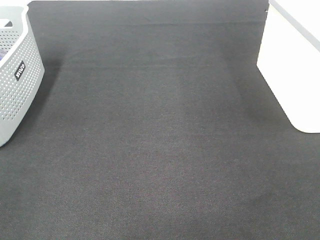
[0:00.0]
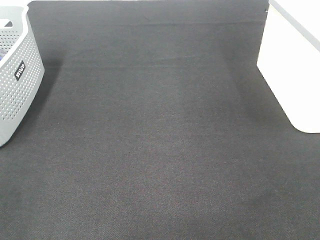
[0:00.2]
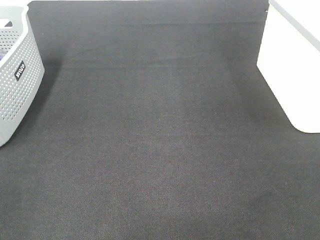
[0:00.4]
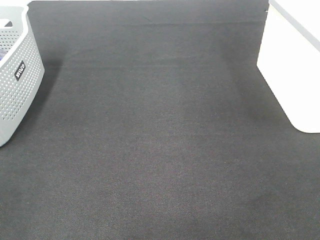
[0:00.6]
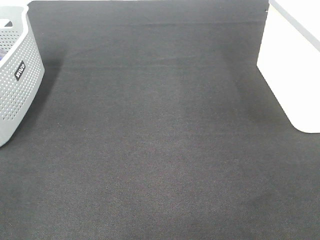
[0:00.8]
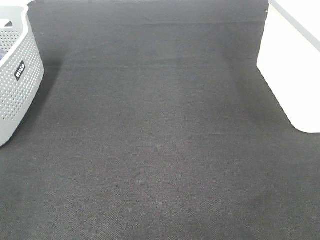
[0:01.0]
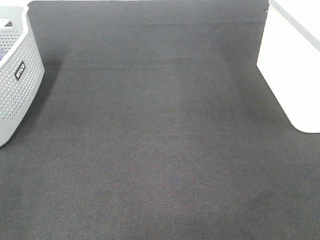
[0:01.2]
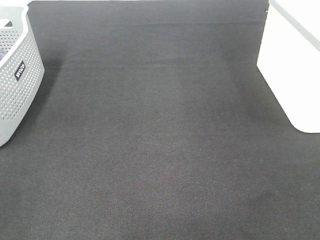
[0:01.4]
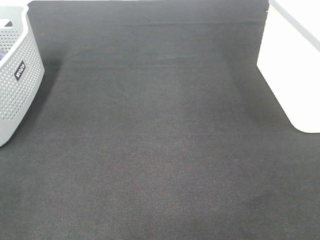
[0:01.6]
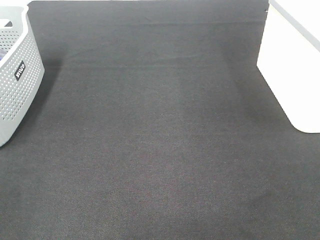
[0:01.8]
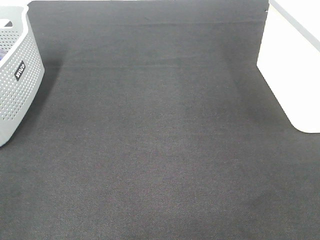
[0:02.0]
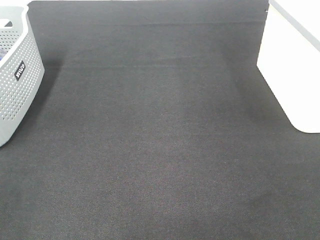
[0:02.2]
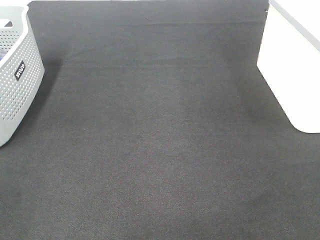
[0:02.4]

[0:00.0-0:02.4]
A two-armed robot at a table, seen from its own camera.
0:00.0 to 0:02.4: The two grippers keep their place.

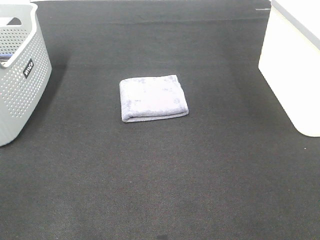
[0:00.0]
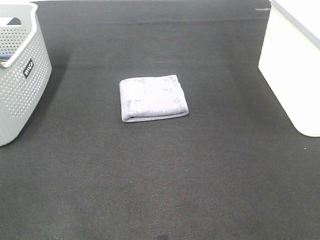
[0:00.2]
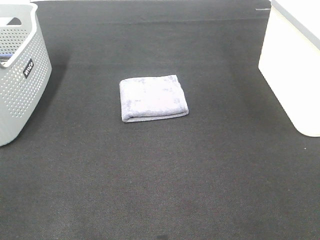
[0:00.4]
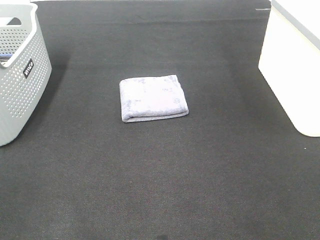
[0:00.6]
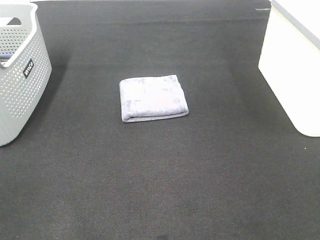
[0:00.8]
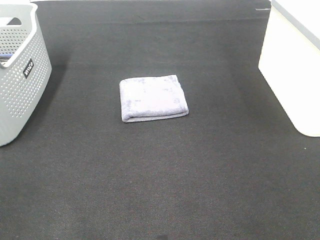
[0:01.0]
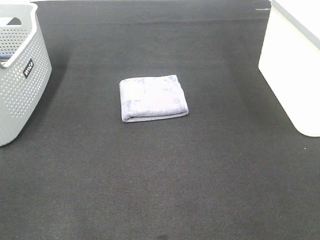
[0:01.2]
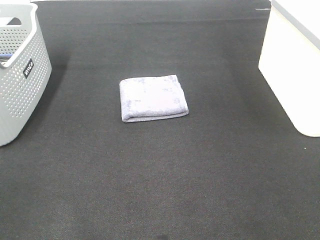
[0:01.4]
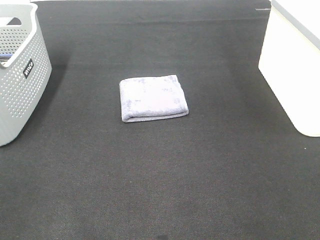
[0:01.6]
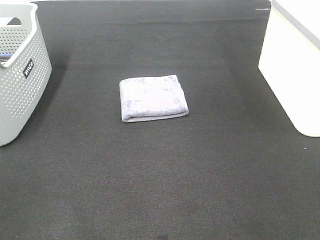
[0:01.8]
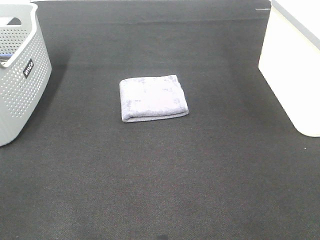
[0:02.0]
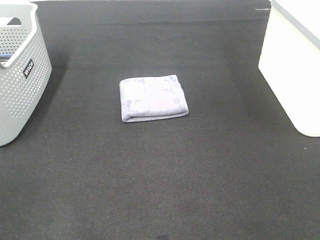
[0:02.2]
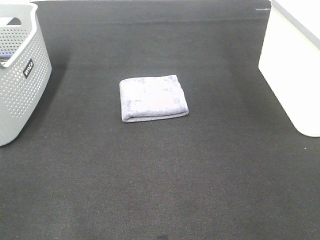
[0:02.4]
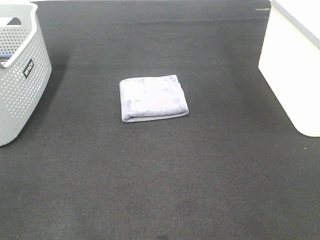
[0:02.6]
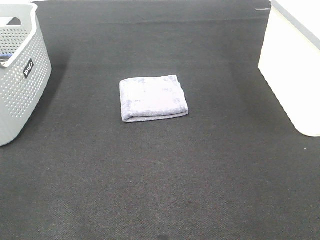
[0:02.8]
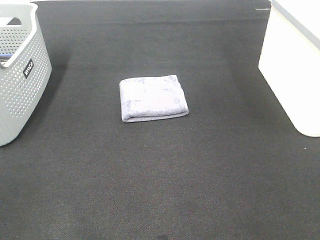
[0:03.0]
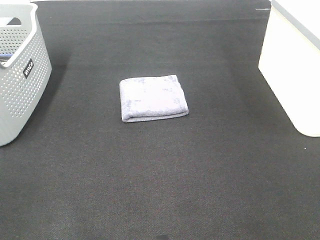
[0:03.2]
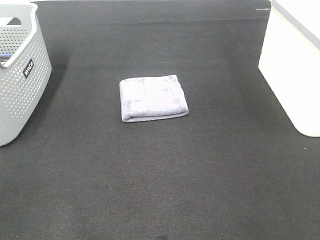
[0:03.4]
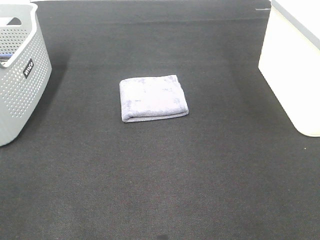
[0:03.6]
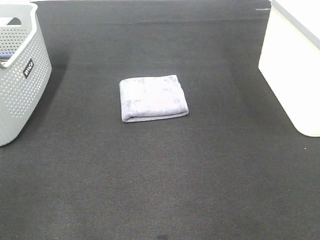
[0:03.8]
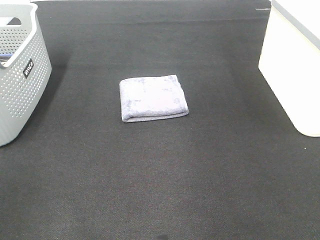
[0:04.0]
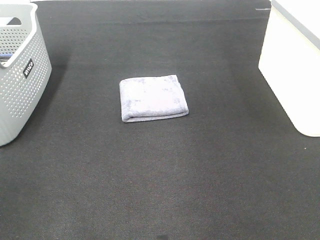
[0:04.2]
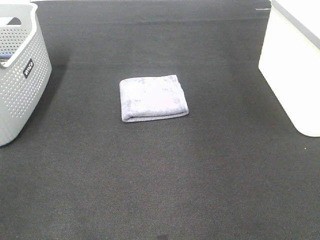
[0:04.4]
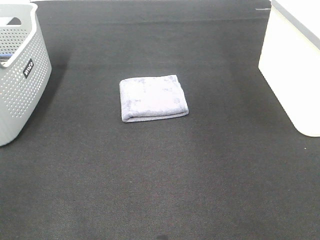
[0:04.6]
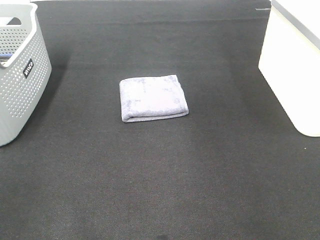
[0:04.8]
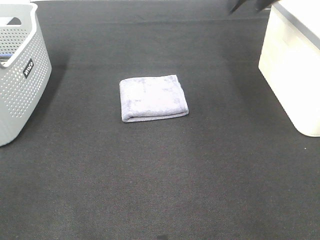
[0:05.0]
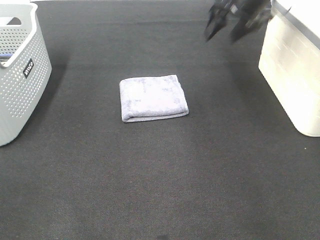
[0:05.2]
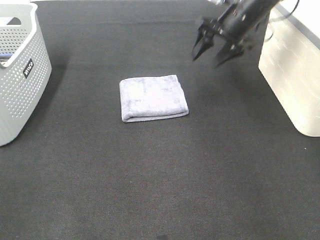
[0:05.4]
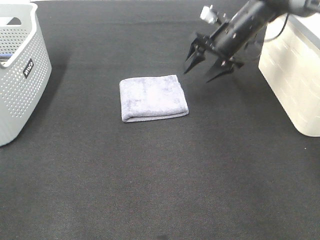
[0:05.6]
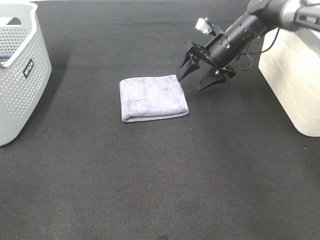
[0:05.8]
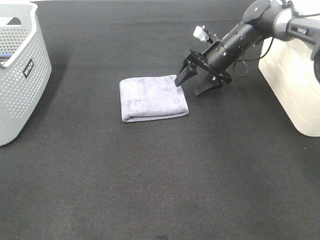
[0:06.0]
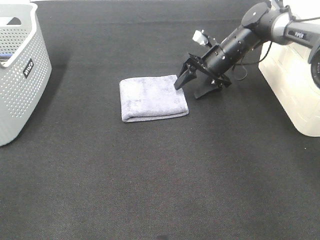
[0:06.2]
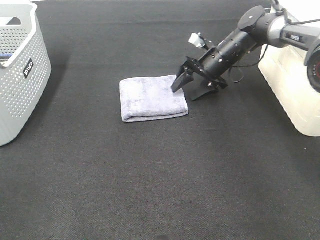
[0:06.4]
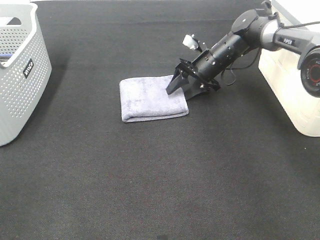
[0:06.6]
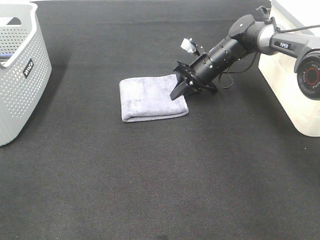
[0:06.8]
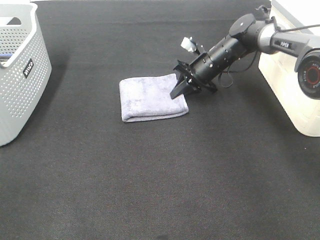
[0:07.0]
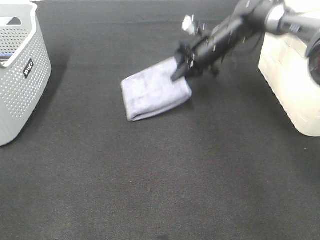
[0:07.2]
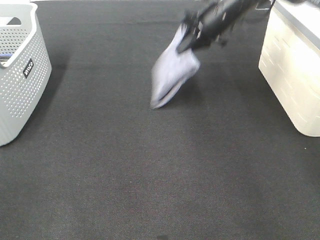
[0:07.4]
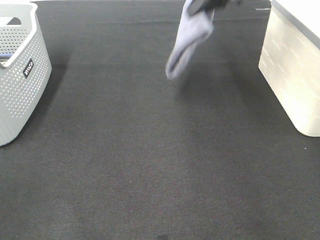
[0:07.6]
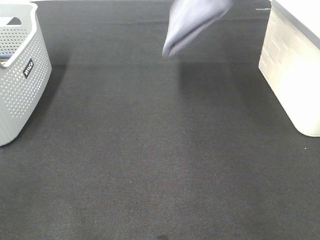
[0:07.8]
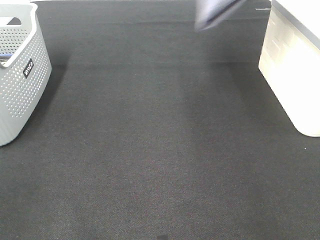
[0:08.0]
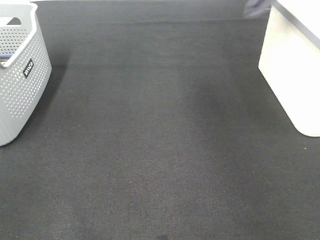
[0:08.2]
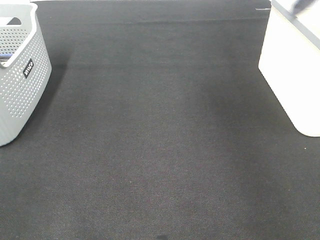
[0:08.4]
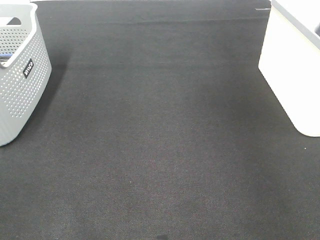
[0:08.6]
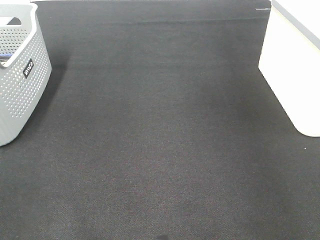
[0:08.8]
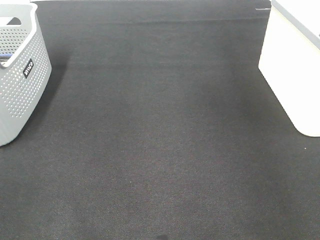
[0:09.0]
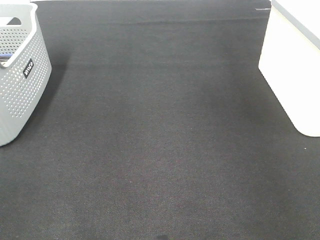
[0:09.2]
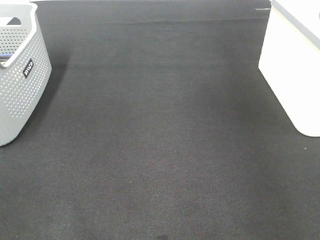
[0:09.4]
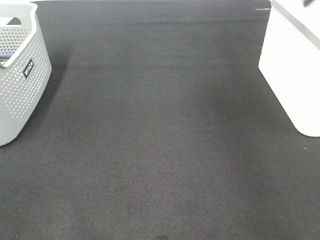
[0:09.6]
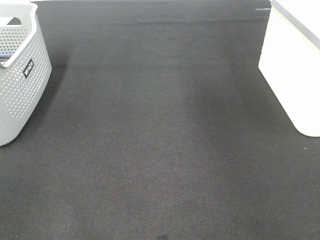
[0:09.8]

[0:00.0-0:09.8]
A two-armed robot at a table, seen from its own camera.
Step, 0:00.0 to 0:06.8: Right hand: grab the folded grey towel.
0:00.0 to 0:02.8: Both grippers stay put.
0:04.2 to 0:05.6: The right gripper is displaced downward, forward and to the left by approximately 35 cm.
0:05.6 to 0:07.0: The right gripper goes some 5 cm downward, and closes its fingers.
0:07.0 to 0:08.4: The right gripper heads upward and to the right, covering roughly 40 cm.

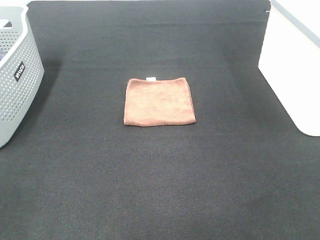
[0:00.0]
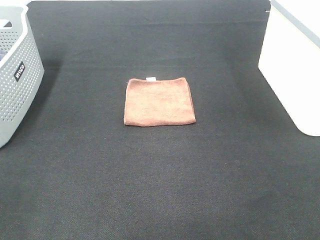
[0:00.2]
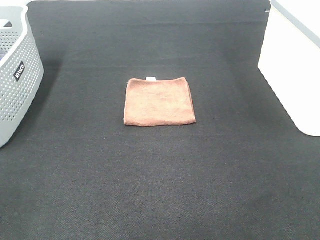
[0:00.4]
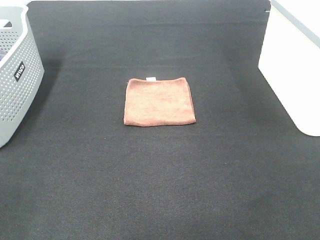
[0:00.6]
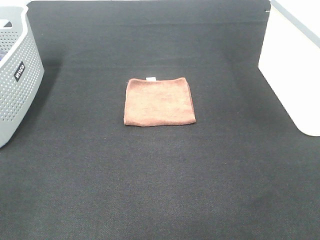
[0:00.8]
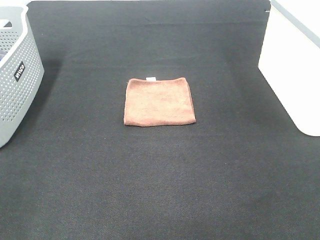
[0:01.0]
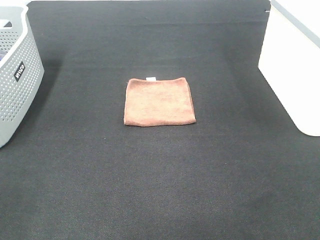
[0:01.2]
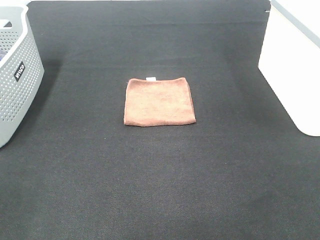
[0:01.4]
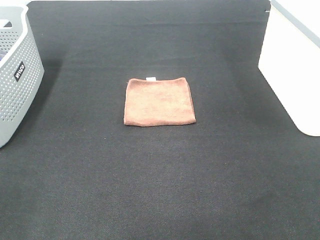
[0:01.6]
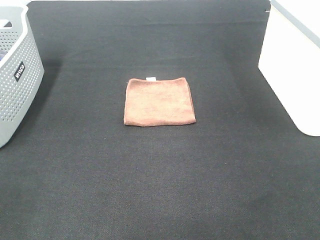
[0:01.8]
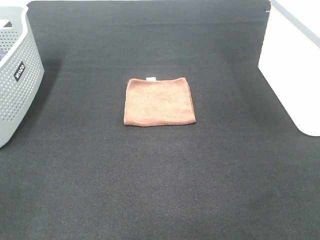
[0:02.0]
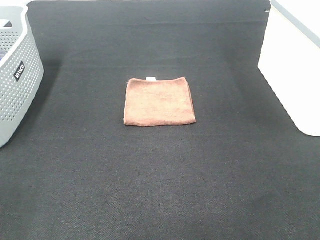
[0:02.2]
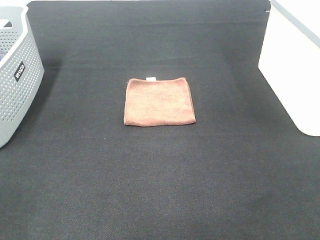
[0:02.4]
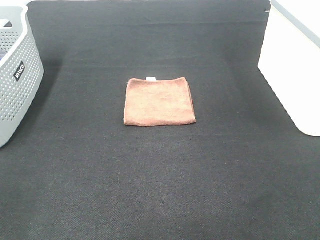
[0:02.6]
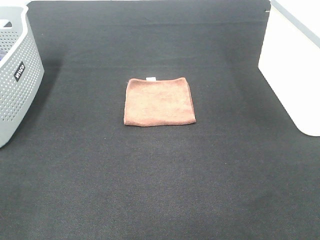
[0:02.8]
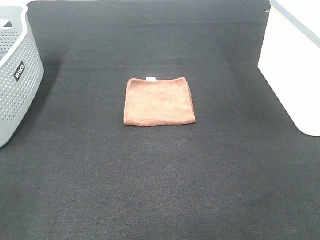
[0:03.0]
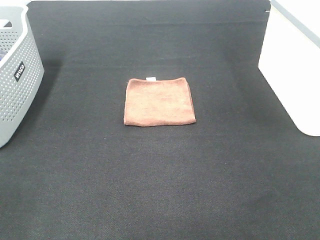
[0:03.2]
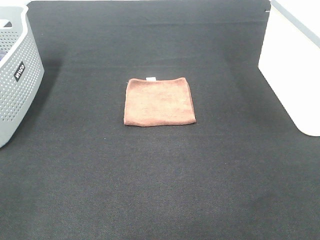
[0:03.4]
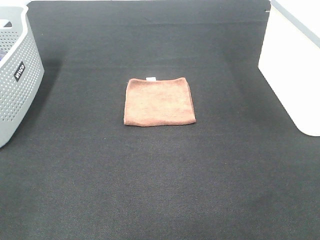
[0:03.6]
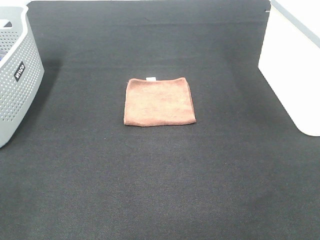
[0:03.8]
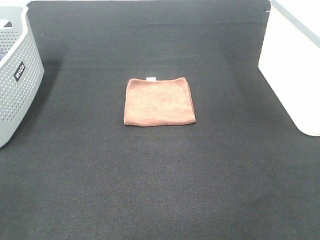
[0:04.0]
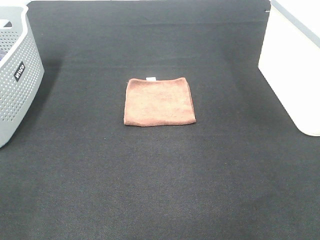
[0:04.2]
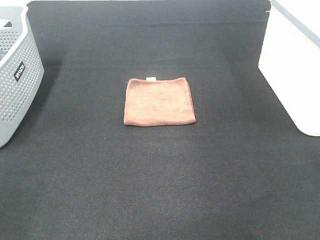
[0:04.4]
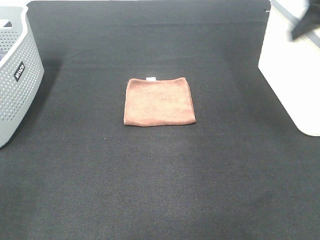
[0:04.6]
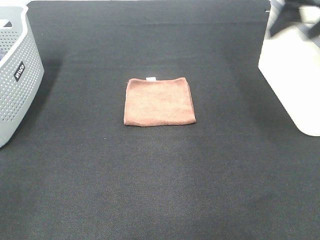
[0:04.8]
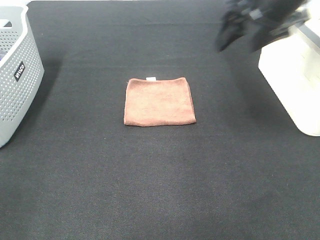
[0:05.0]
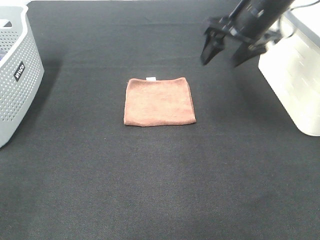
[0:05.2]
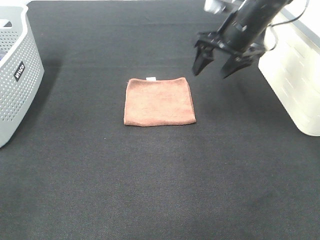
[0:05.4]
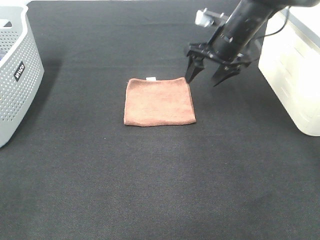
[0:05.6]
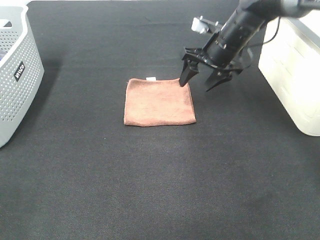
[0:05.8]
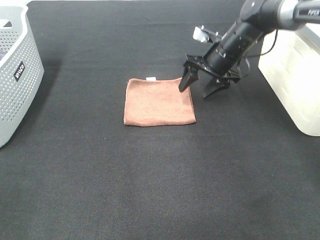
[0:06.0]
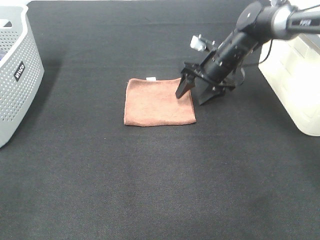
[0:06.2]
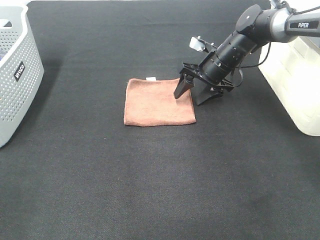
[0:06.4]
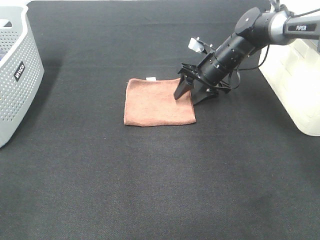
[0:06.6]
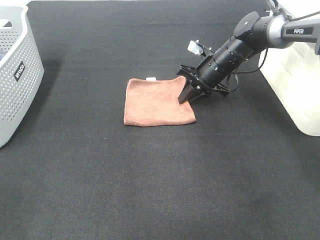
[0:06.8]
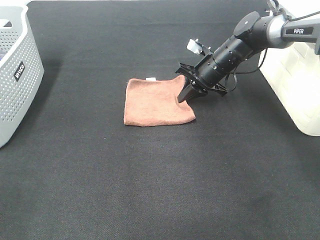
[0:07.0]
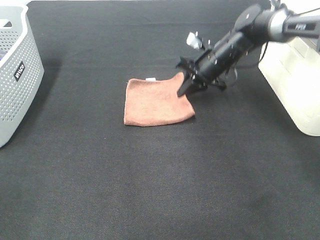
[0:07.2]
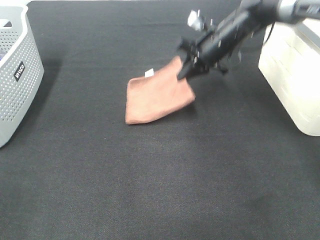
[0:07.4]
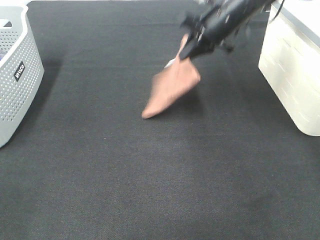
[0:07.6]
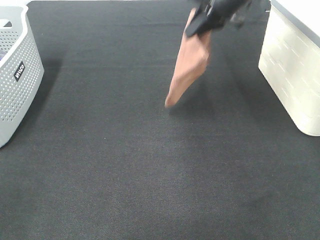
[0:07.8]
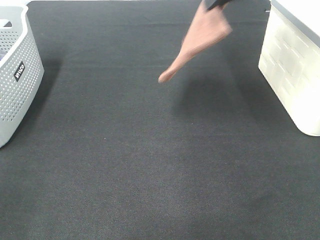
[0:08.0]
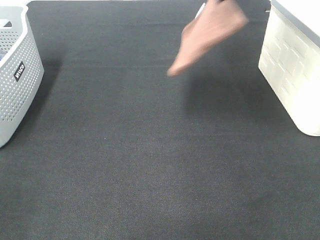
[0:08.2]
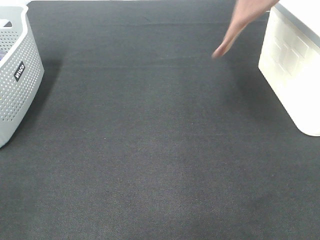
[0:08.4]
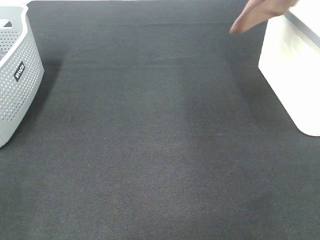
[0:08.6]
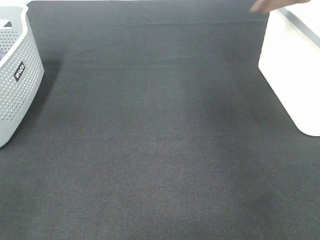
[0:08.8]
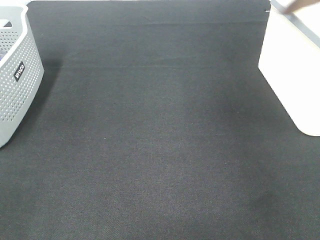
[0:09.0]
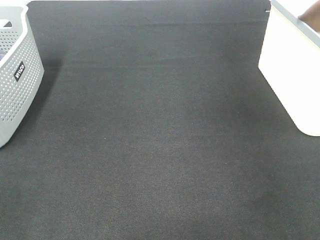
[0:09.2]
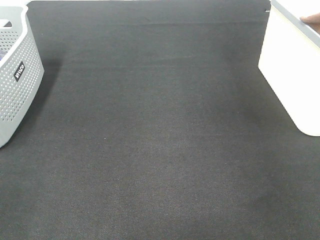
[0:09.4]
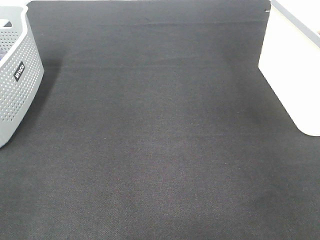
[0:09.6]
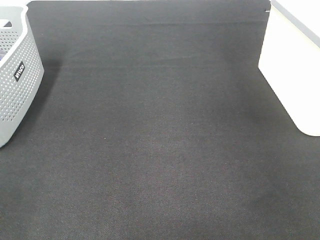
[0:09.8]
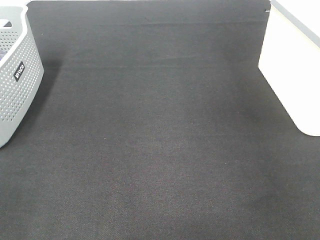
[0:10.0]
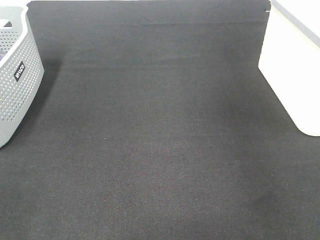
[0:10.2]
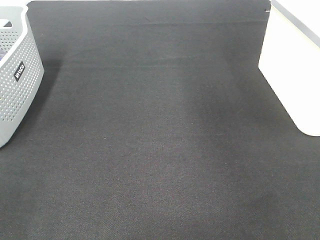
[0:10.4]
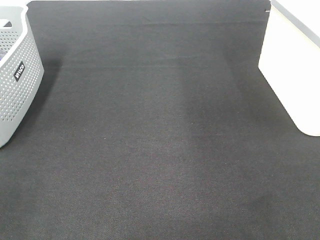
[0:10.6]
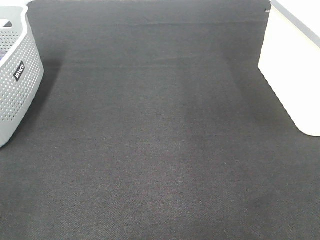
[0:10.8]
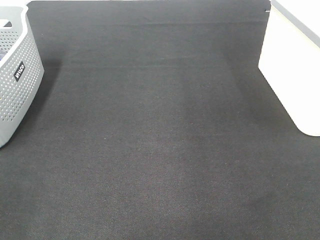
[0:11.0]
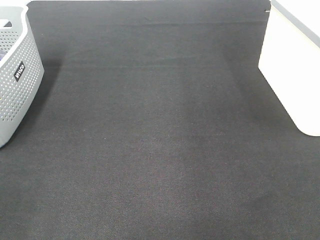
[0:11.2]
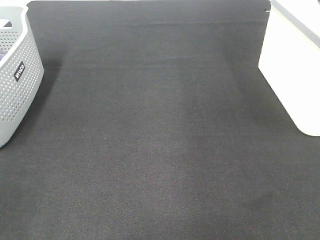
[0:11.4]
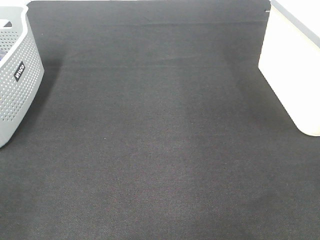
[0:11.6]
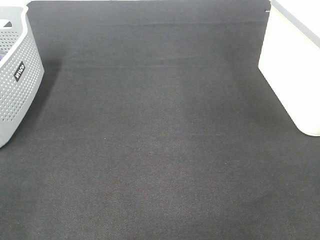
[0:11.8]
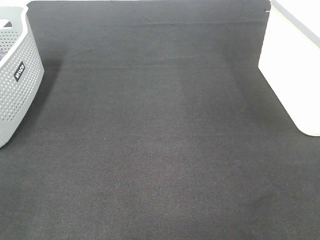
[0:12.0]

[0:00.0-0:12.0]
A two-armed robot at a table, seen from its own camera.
Step, 0:00.0 to 0:07.2: Right hand: grab the folded brown towel.
Step, 0:07.4 to 0:10.2: Right hand: place the brown towel in right basket.
0:00.0 to 0:03.0: Both grippers stay about where they are.
0:04.4 to 0:06.0: The right gripper heads forward, downward and to the left, covering some 35 cm.
0:06.0 to 0:07.6: The right gripper moves upward, roughly 10 cm, and closes.
0:07.6 to 0:09.0: The right gripper heads to the right and upward, covering approximately 30 cm.
